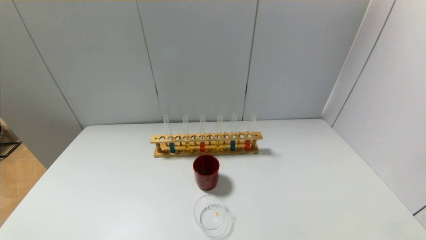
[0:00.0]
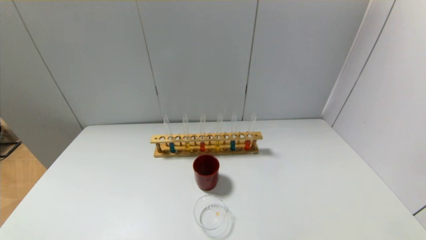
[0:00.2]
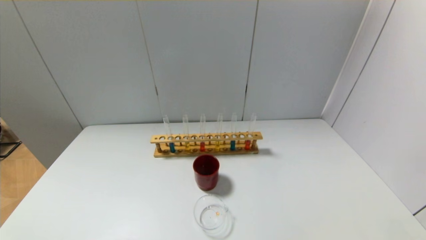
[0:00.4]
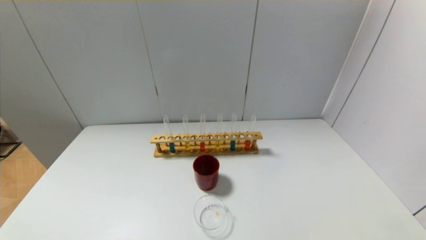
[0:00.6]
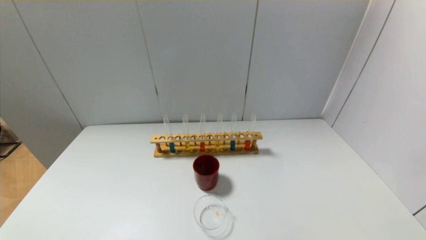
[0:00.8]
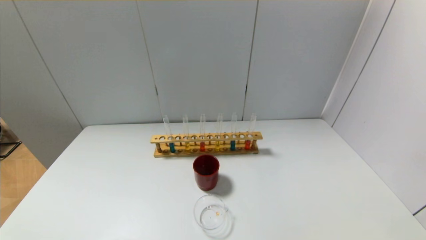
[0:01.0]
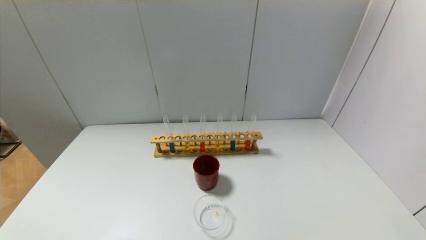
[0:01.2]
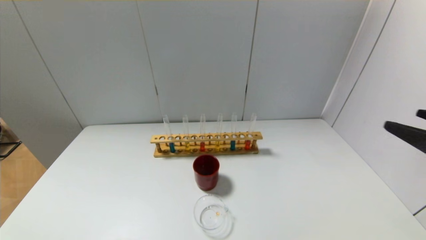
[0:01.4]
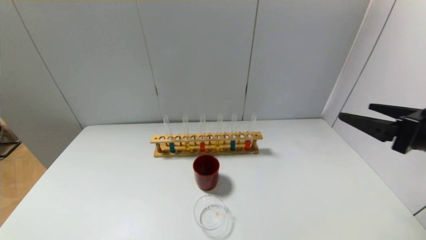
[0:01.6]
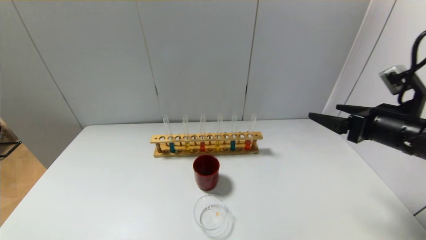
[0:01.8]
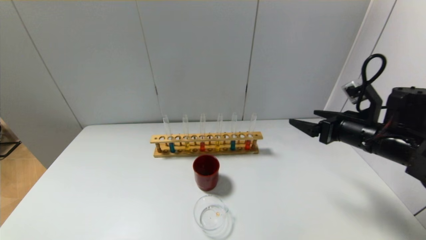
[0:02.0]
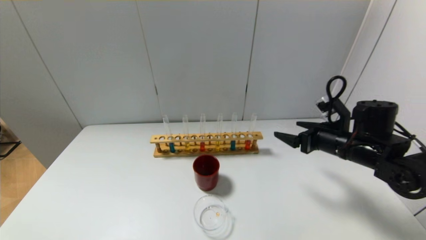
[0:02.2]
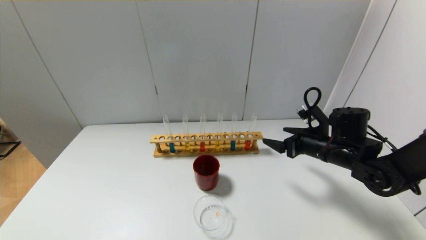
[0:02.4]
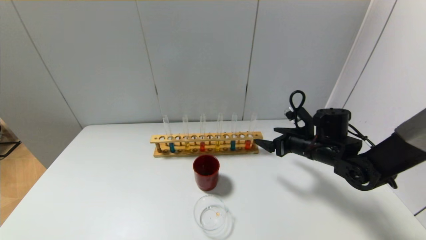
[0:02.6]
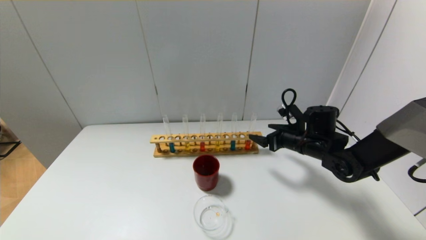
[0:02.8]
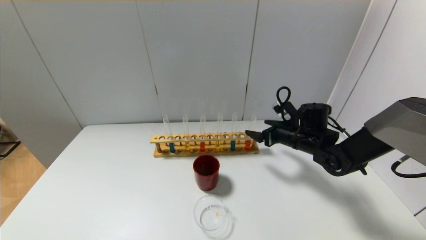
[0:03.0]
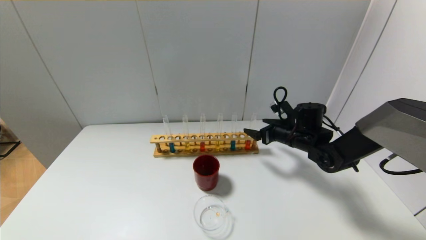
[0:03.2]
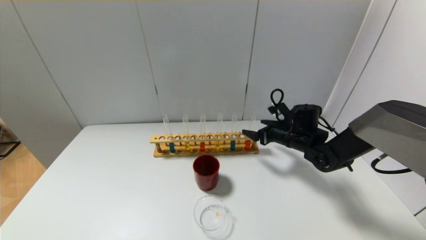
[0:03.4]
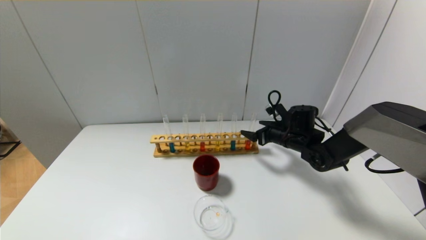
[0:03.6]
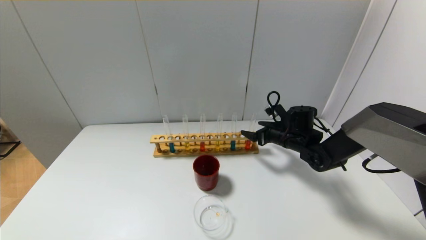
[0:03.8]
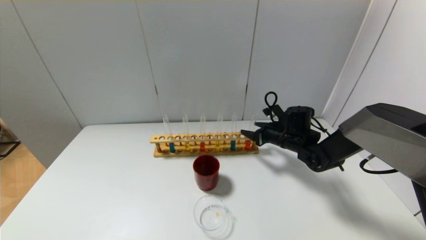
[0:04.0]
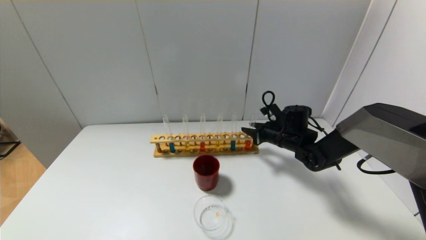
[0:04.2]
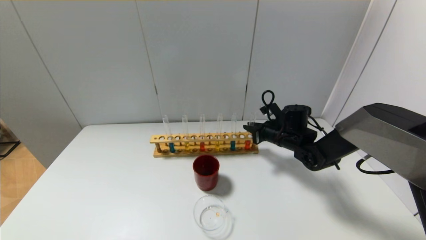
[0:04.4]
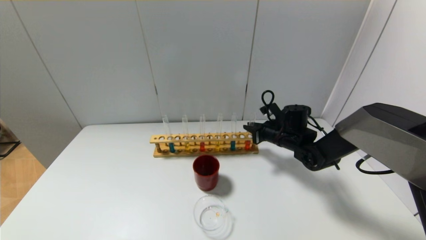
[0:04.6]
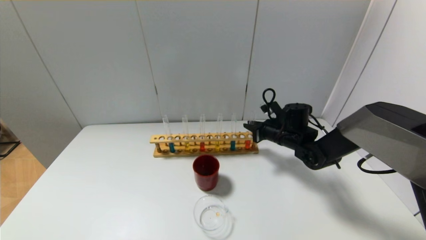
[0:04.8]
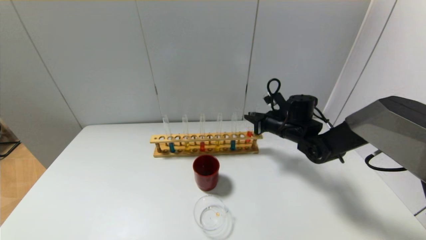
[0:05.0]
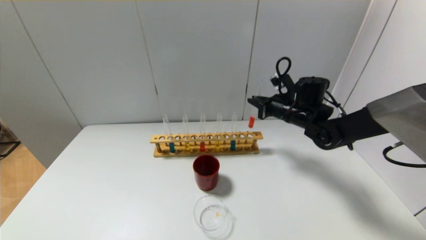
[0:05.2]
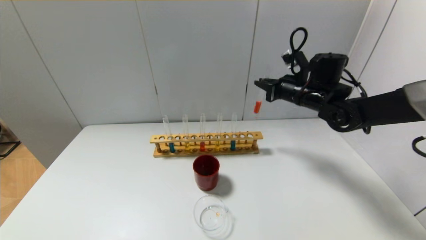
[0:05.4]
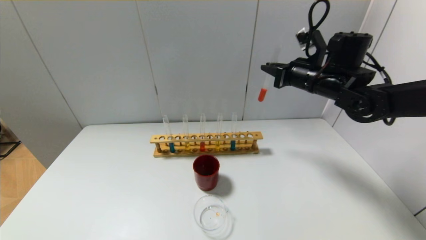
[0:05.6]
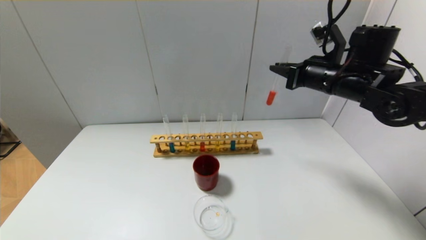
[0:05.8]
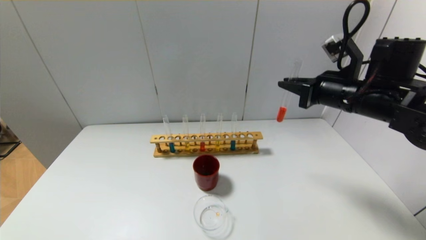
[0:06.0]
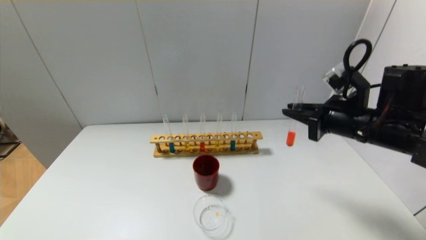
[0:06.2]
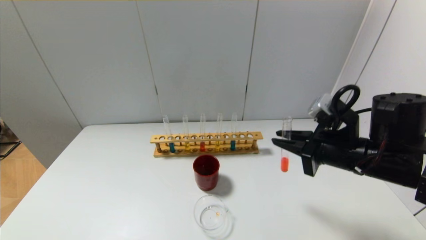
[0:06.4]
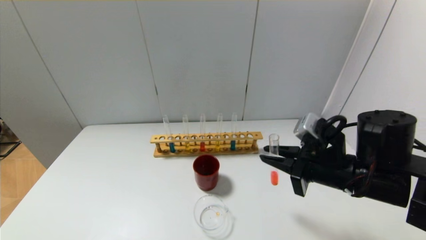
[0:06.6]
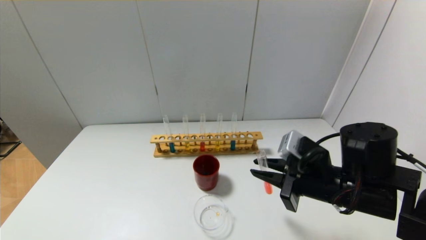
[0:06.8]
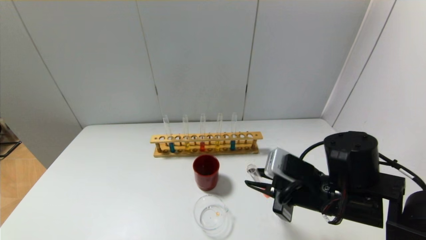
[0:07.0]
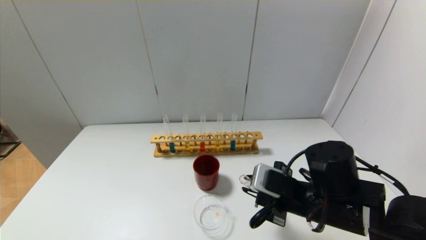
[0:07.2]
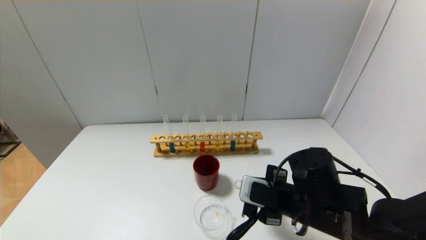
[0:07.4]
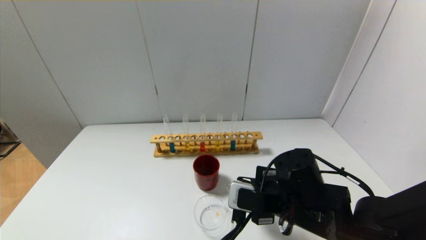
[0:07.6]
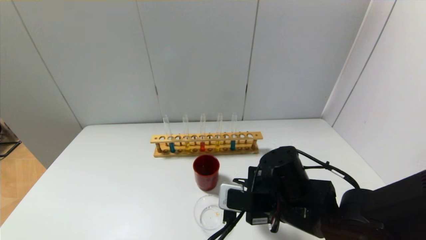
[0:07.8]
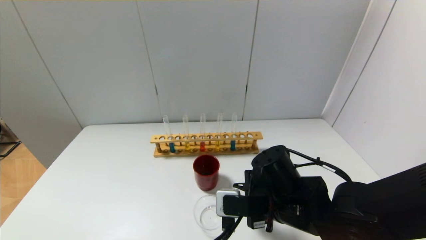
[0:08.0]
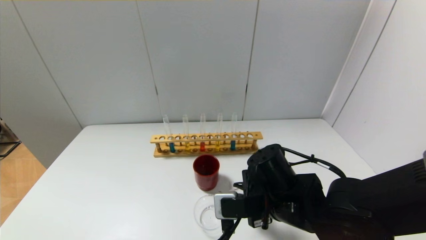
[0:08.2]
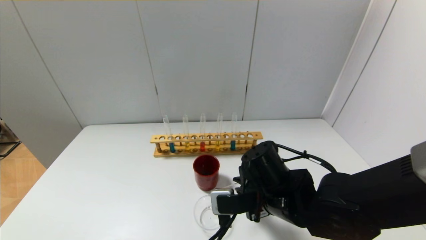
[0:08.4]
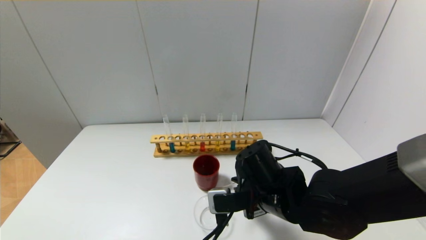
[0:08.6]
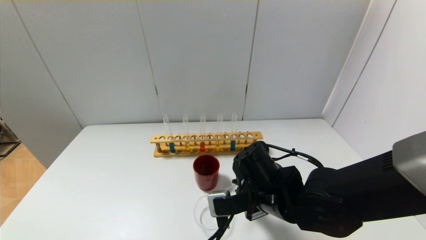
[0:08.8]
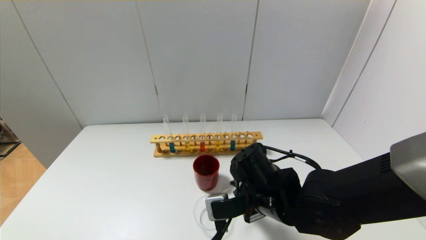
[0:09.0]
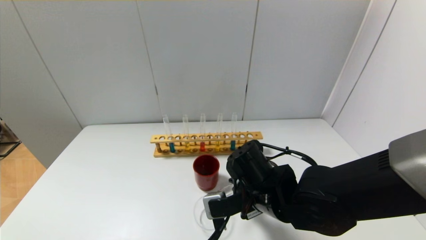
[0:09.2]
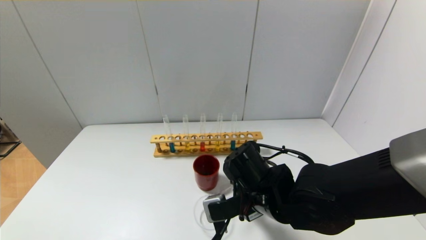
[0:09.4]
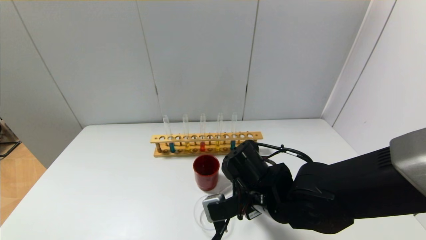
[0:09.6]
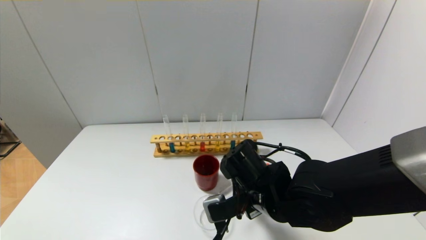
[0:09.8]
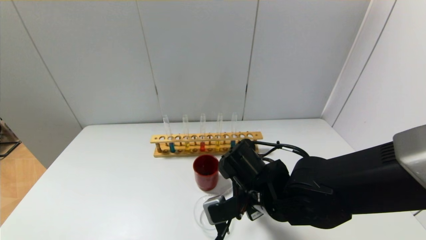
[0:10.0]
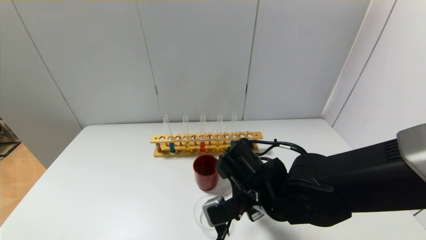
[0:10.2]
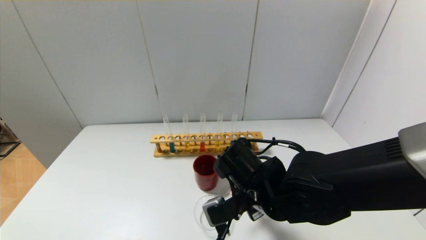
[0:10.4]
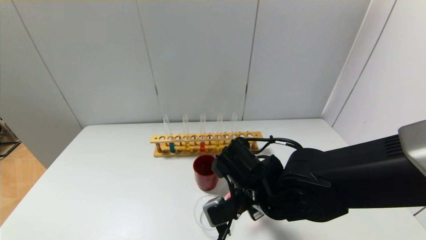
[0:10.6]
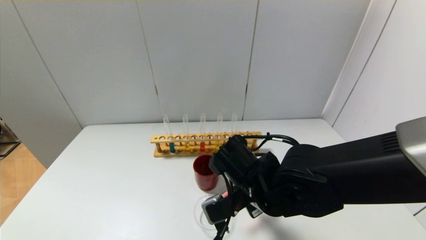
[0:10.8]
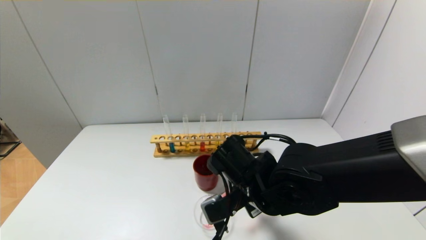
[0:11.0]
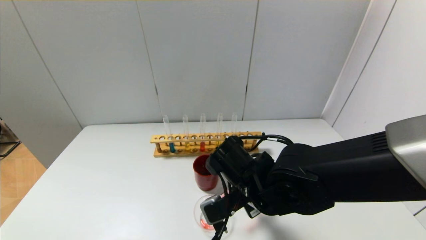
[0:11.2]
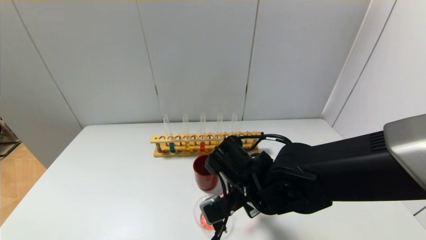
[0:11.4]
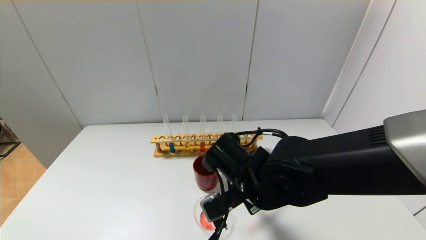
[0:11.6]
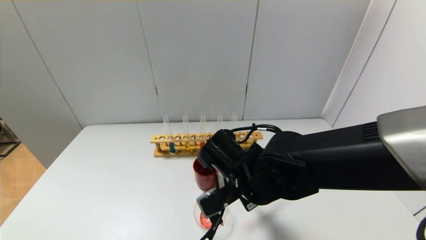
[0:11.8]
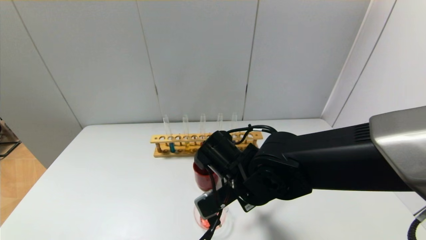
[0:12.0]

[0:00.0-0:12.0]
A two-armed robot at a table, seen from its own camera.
Step, 0:00.0 to 0:04.4: Grasp the red reagent with the right gripper.
0:00.0 to 0:01.6: The right gripper heads forward and upward, covering roughly 25 cm.
0:01.6 to 0:03.0: The right gripper travels forward, downward and to the left by some 25 cm.
0:03.0 to 0:04.4: The right gripper closes its fingers.
0:04.4 to 0:06.0: The right gripper travels upward and backward by approximately 20 cm.
0:06.0 to 0:07.6: The right gripper shifts roughly 20 cm downward, to the left and backward.
0:09.0 to 0:10.4: The grippers make only small movements.
0:10.4 to 0:12.0: The grippers stay close to where they were, moving slightly.

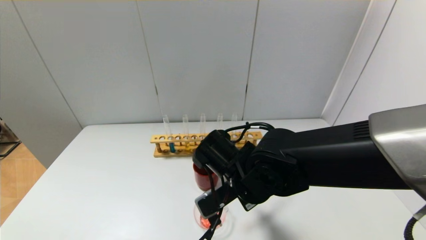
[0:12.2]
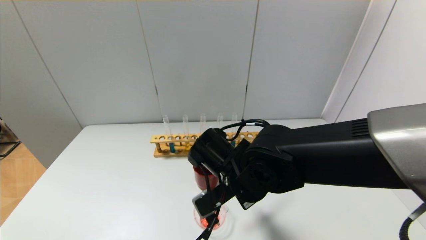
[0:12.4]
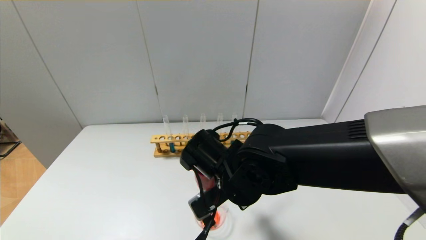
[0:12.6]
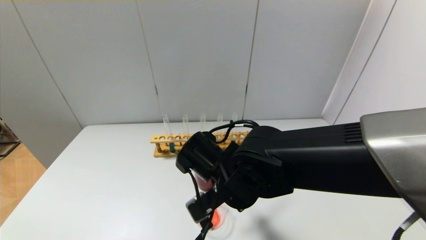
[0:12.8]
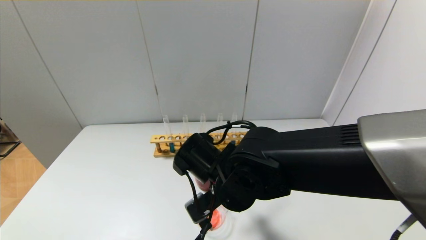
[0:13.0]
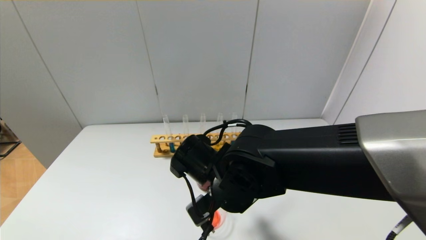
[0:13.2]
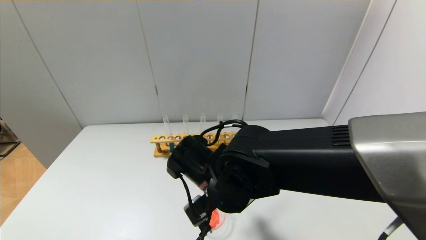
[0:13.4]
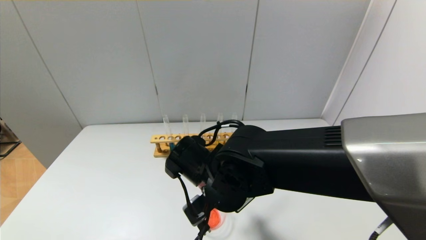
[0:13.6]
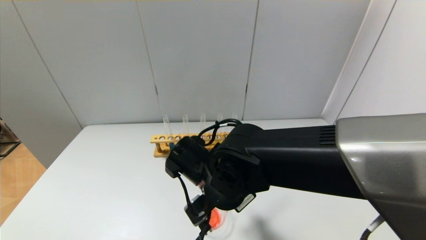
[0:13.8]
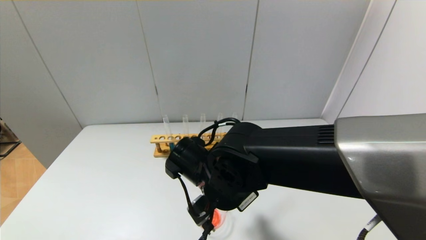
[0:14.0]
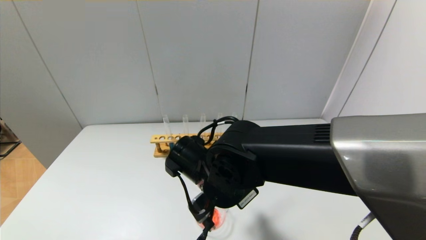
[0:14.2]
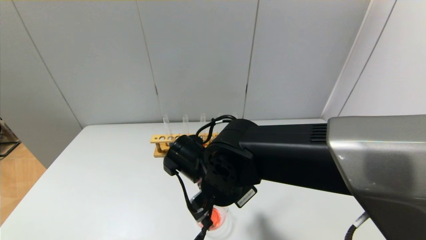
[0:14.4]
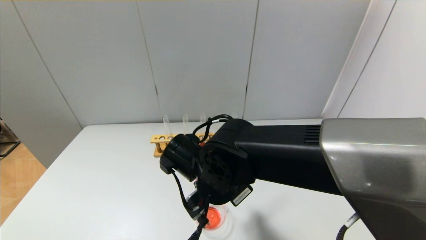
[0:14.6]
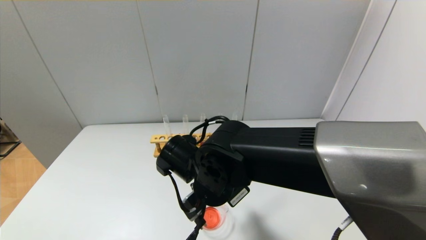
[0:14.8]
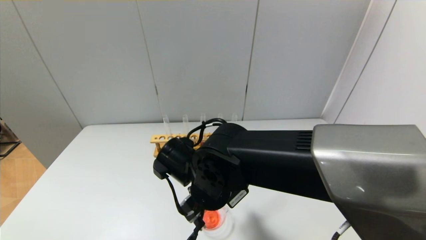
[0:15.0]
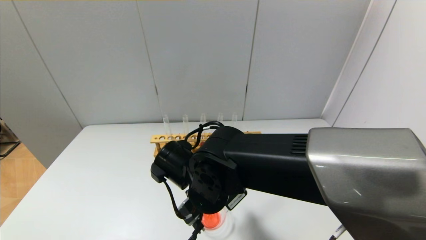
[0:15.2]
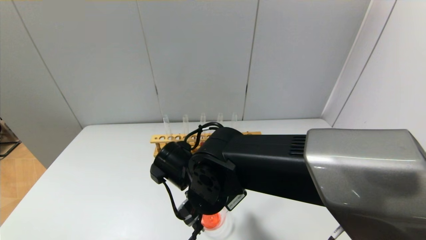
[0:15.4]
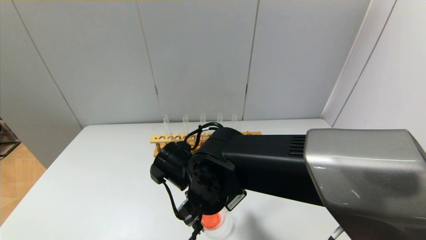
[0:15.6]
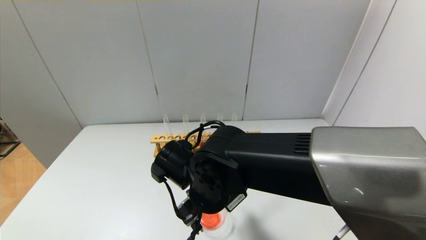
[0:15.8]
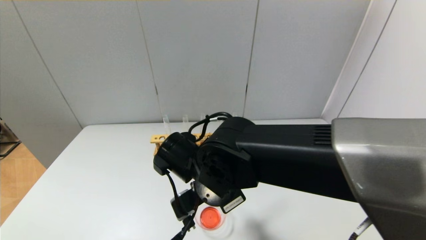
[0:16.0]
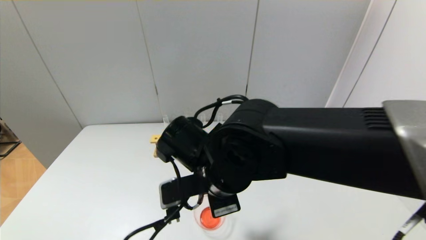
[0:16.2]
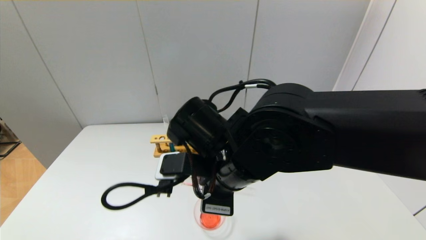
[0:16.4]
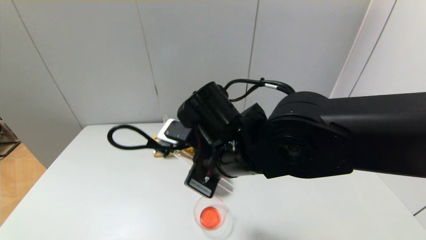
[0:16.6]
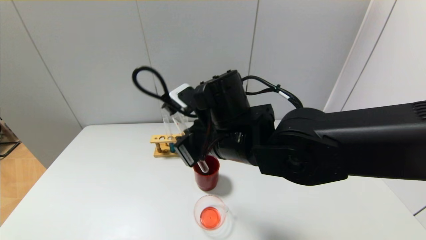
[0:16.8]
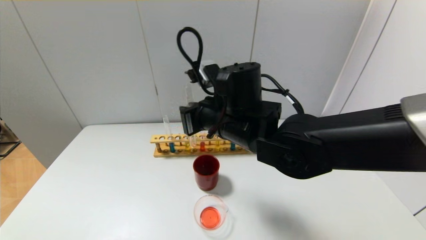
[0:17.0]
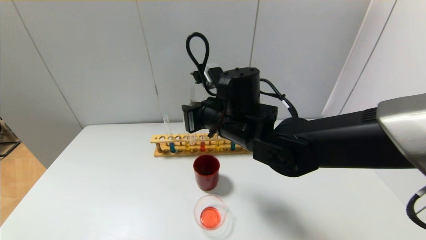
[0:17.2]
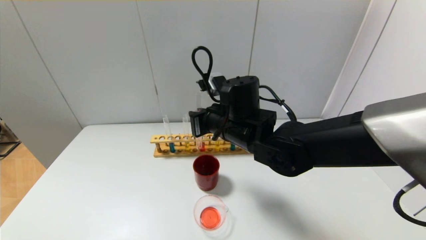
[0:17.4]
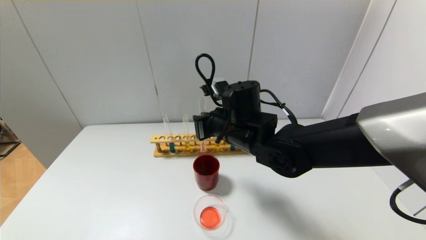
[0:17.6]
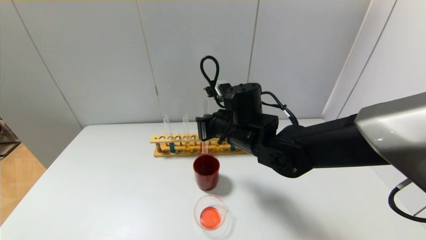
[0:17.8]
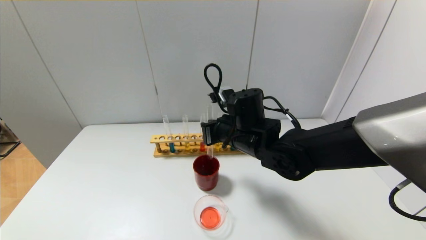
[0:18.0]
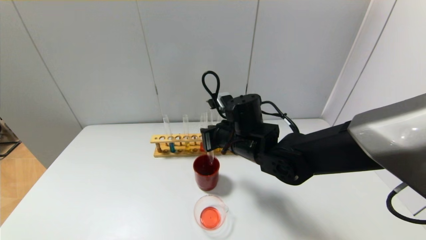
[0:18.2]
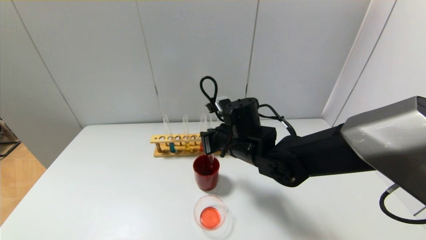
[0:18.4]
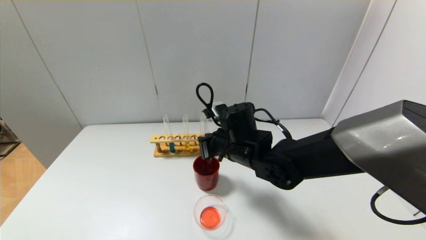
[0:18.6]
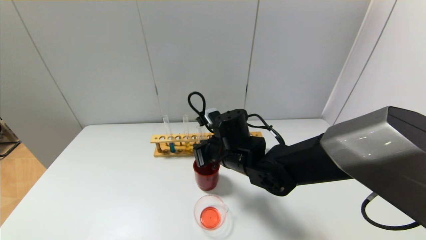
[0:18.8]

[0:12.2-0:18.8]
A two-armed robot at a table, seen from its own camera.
Step, 0:12.2 to 0:16.0: Pour the red reagent into the graduated cylinder with the right gripper.
0:12.2 to 0:15.4: The grippers move only a little.
0:15.4 to 0:17.2: The right gripper shifts approximately 10 cm upward and forward.
0:17.2 to 0:18.8: The right gripper shifts about 10 cm downward.
